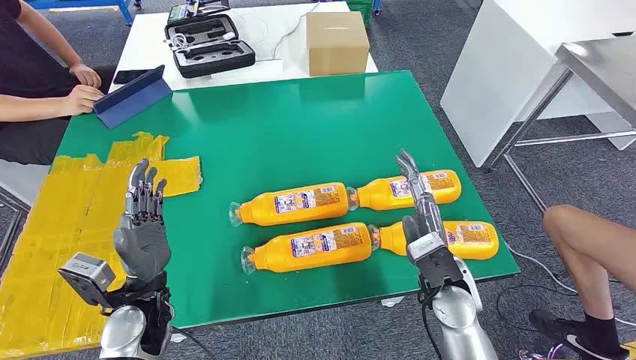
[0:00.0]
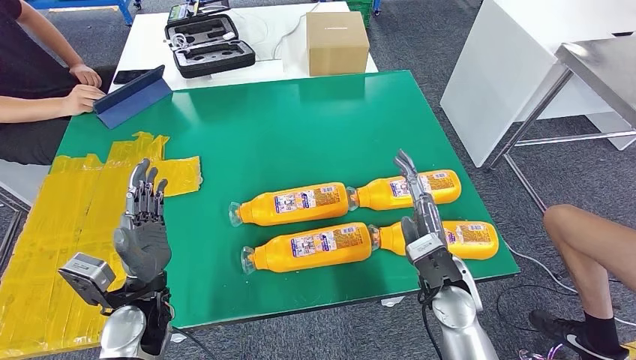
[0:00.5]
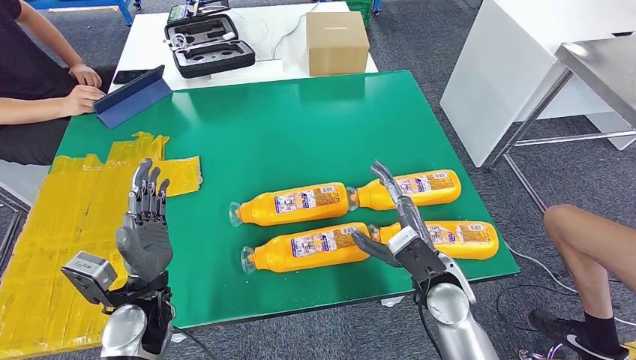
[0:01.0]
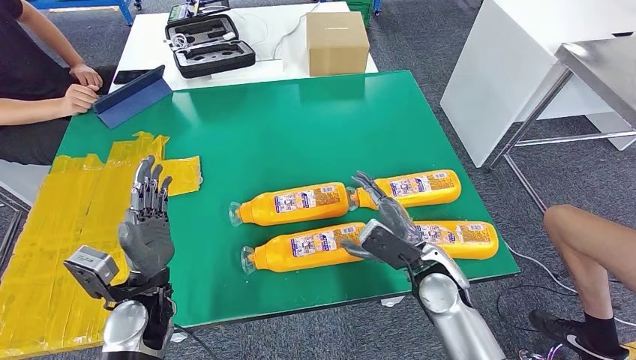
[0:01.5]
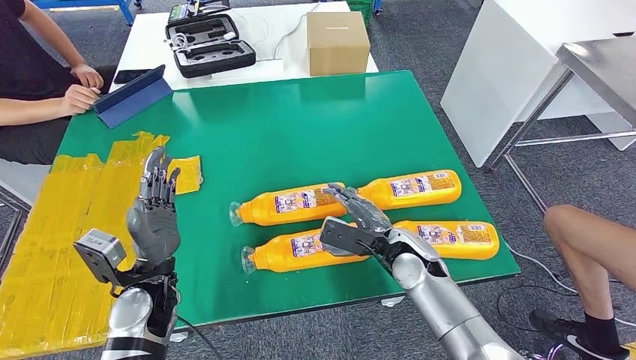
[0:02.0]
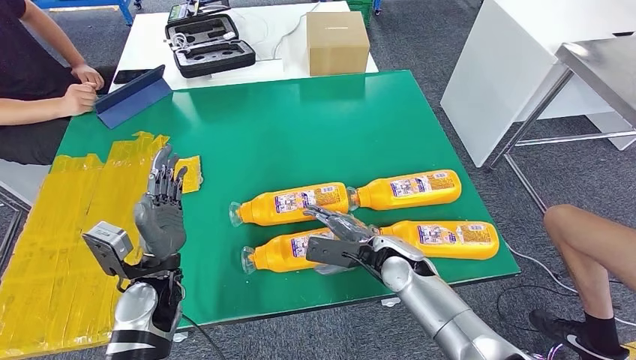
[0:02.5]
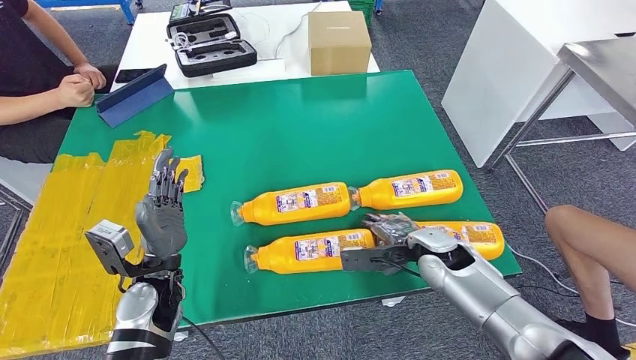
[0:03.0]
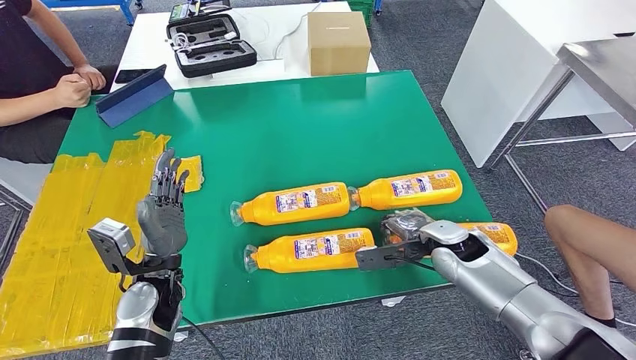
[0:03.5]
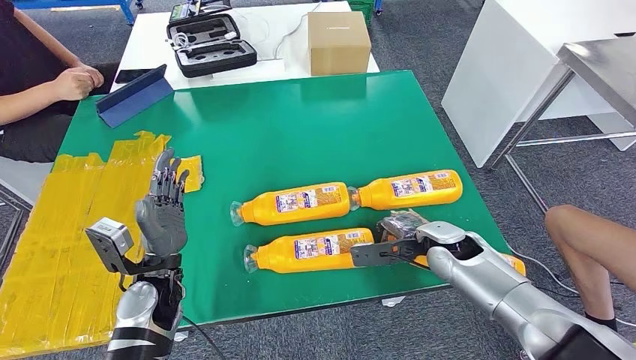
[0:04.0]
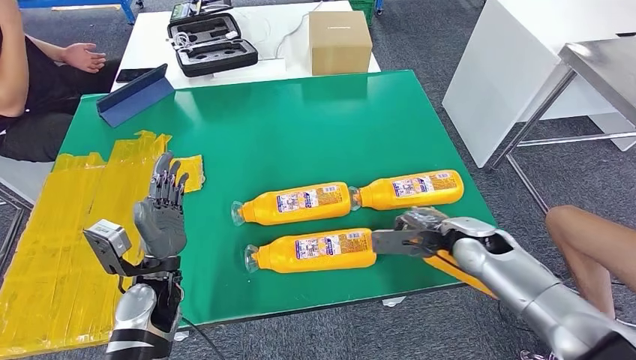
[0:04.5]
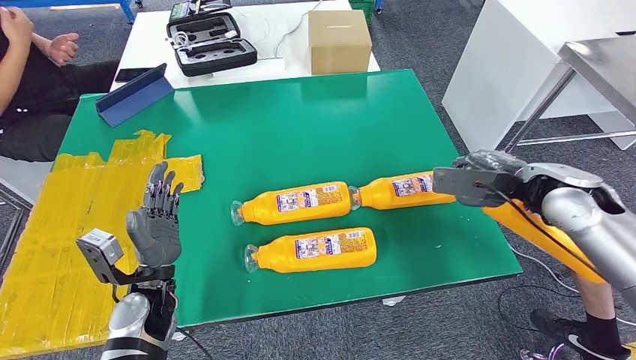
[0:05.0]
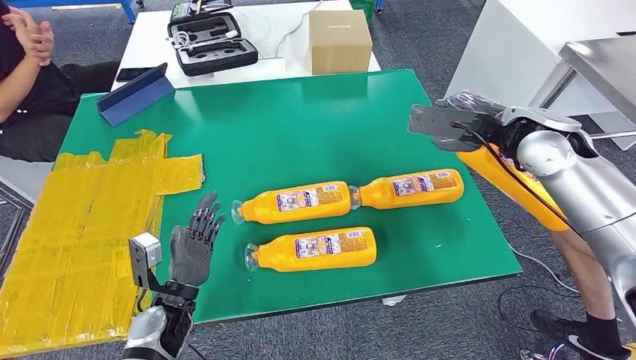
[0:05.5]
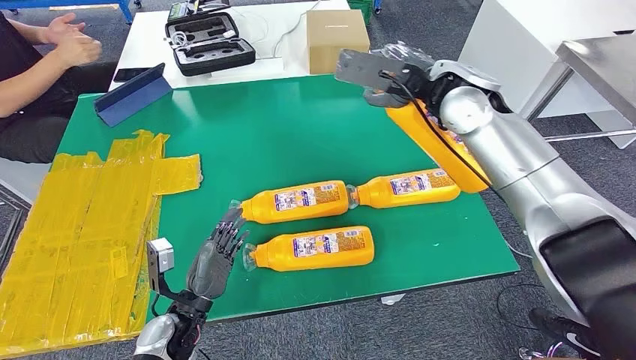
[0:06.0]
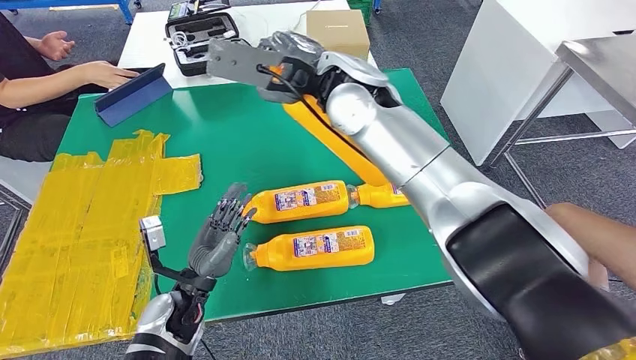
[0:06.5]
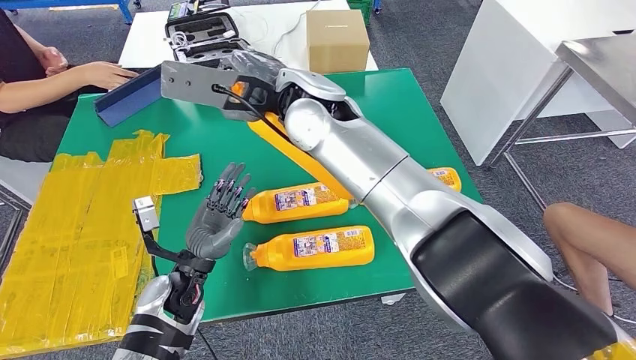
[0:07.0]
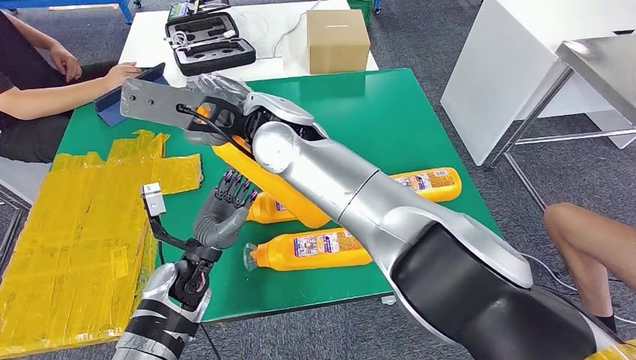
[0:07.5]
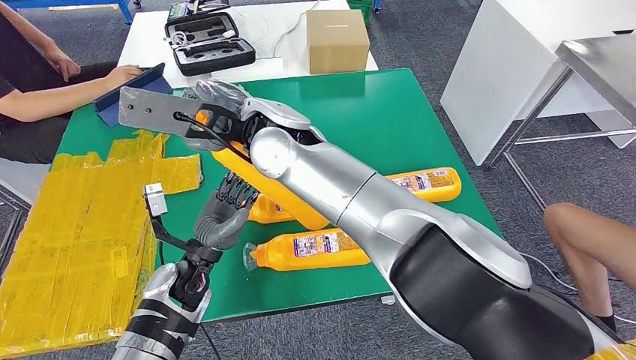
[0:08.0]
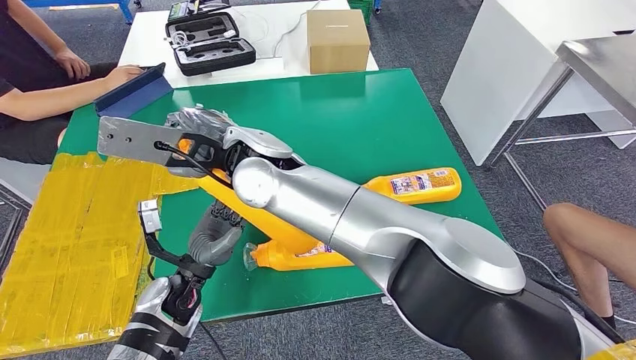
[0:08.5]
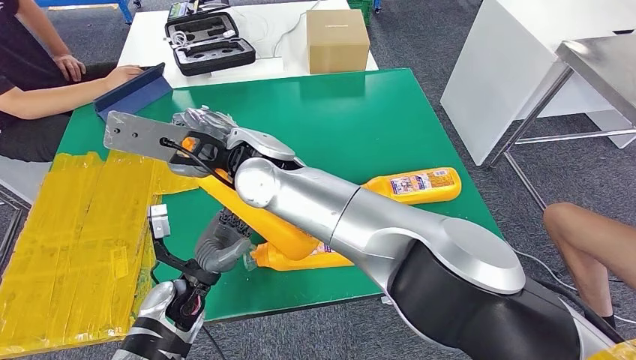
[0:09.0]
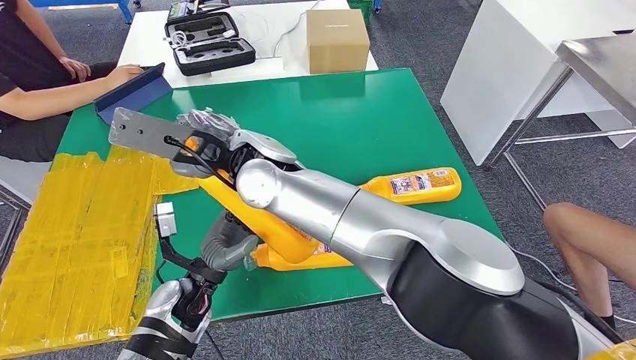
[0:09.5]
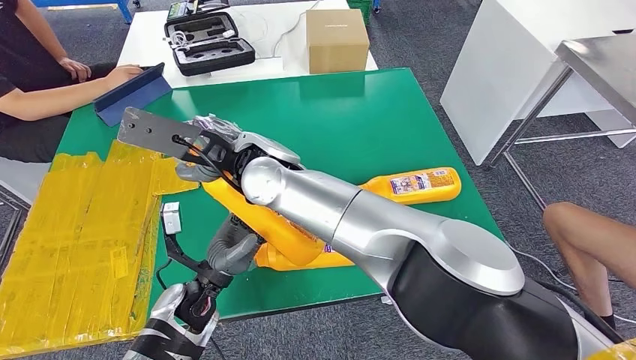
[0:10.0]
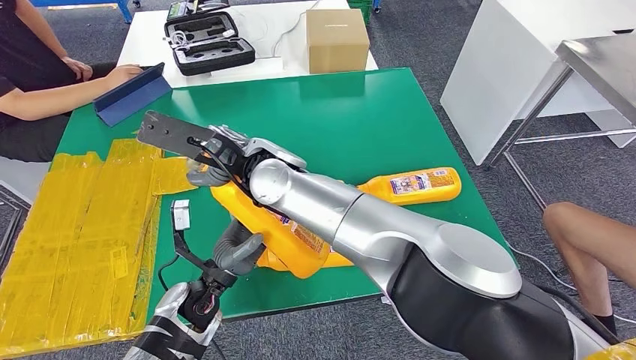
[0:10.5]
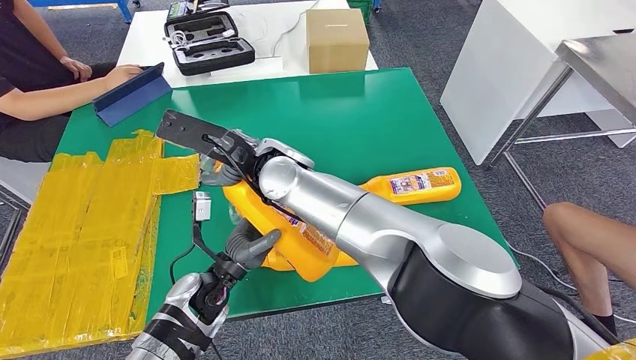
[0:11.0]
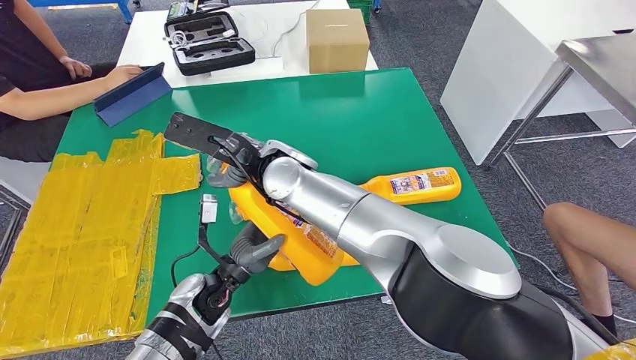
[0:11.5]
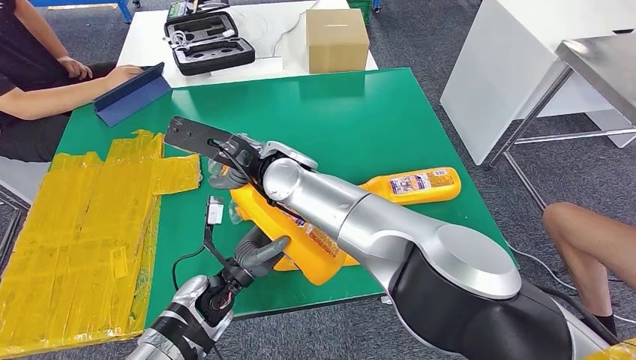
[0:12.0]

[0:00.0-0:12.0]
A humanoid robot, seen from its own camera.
Step, 0:00.0 to 0:05.5: Take the bottle from the table.
0:02.0 to 0:04.0: The right hand travels to the right by about 5 cm.
0:10.0 to 0:12.0: The hands make only small movements.

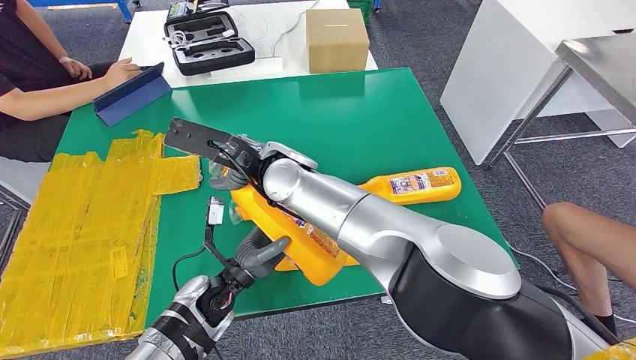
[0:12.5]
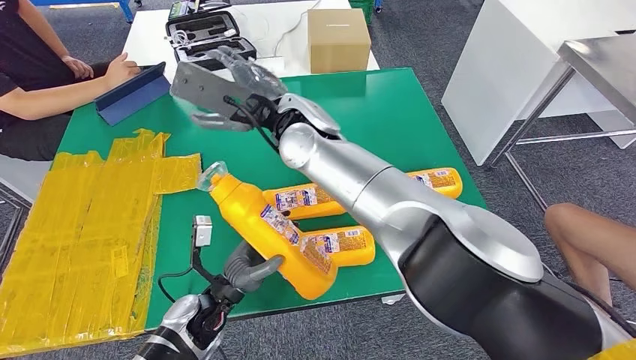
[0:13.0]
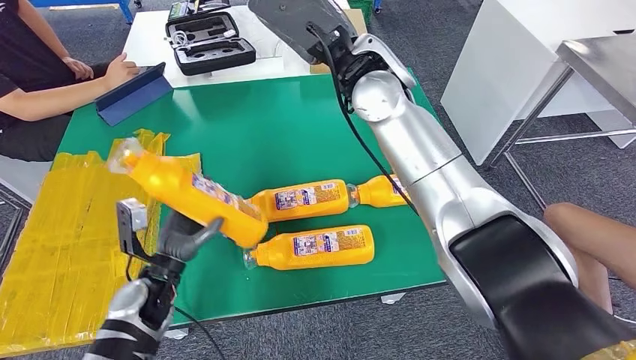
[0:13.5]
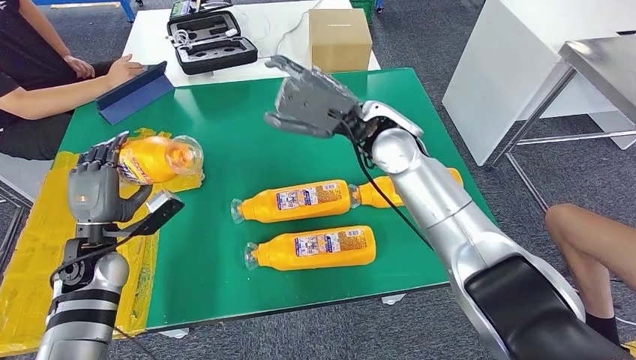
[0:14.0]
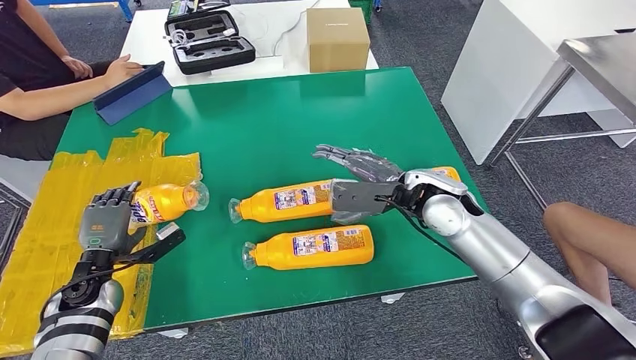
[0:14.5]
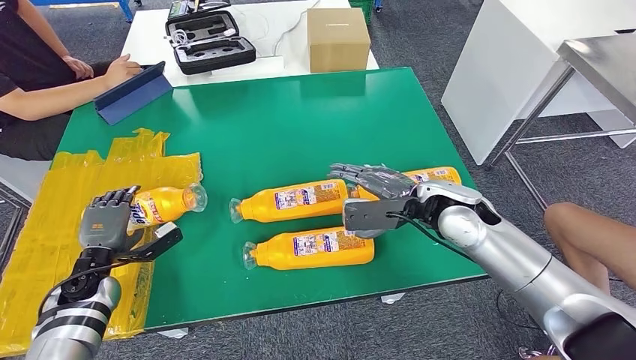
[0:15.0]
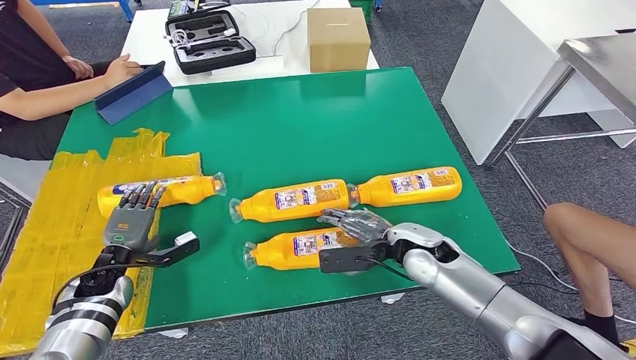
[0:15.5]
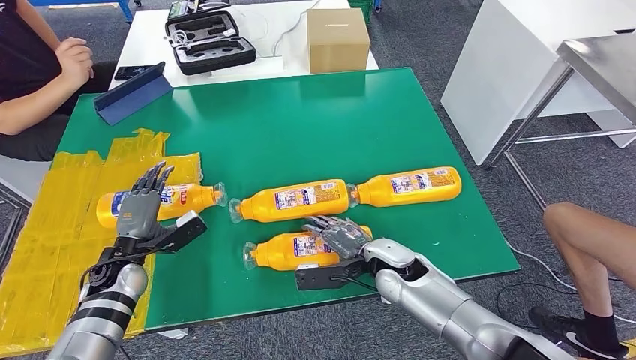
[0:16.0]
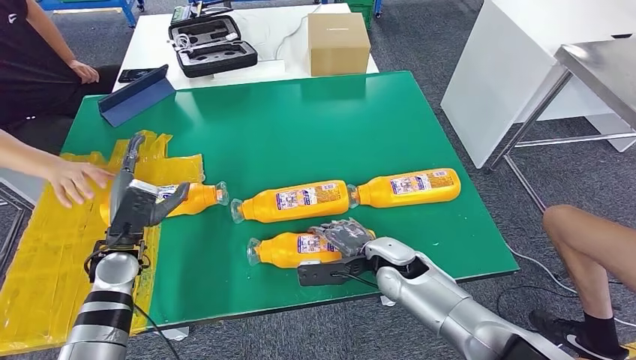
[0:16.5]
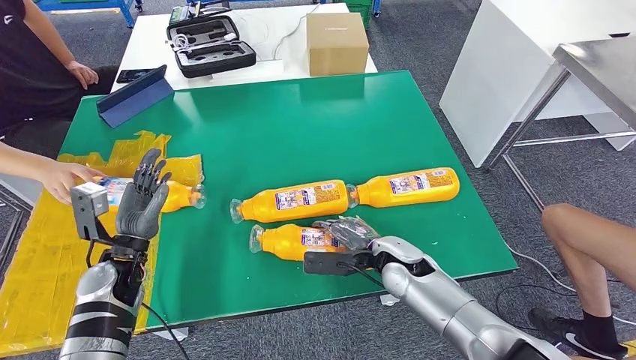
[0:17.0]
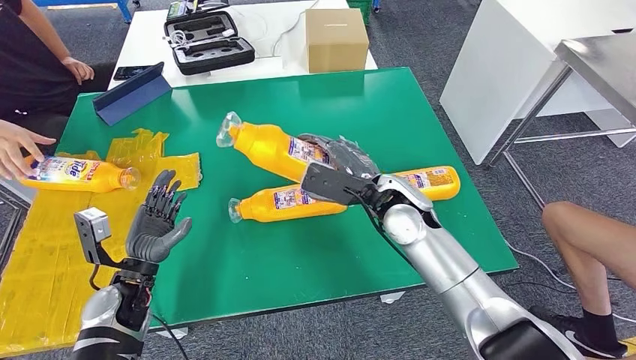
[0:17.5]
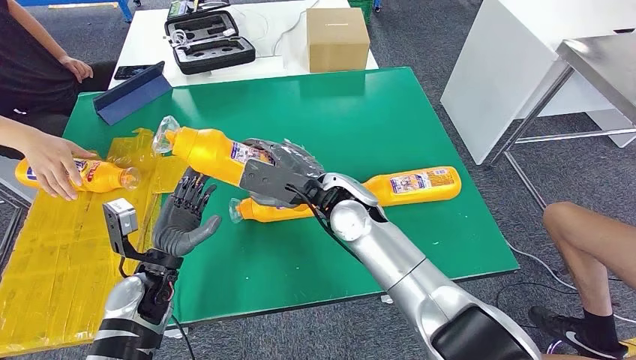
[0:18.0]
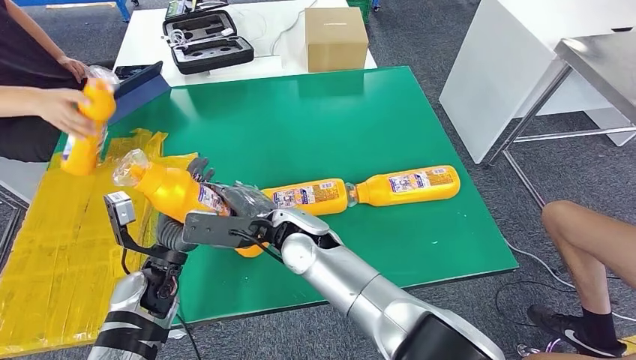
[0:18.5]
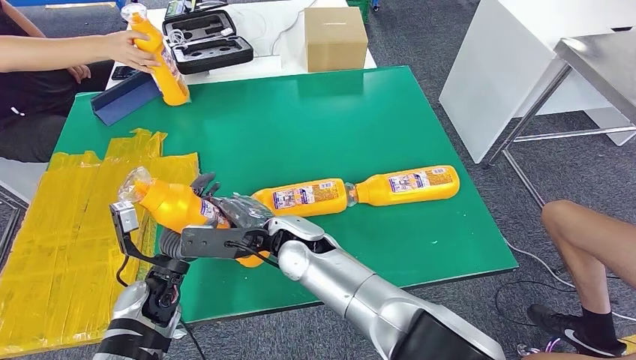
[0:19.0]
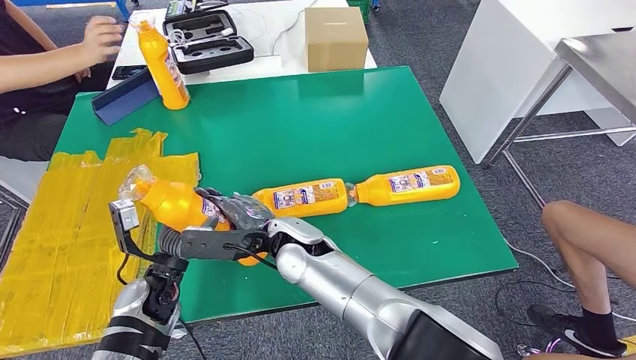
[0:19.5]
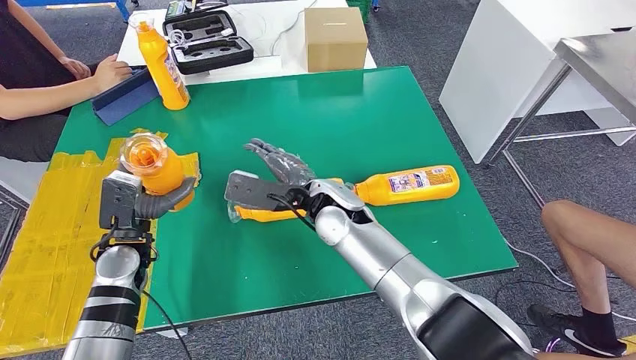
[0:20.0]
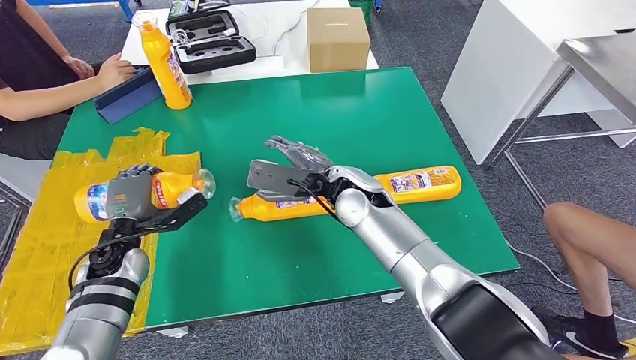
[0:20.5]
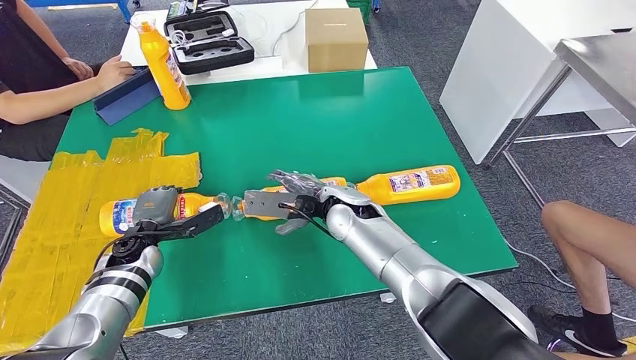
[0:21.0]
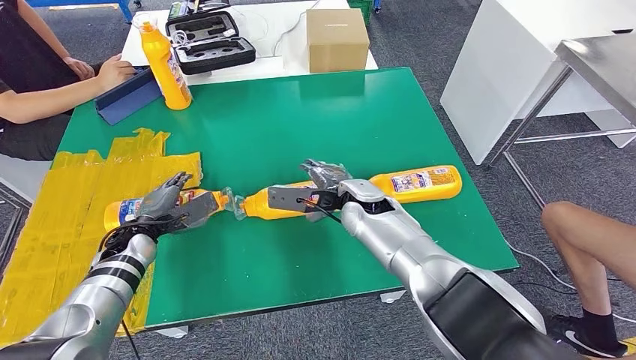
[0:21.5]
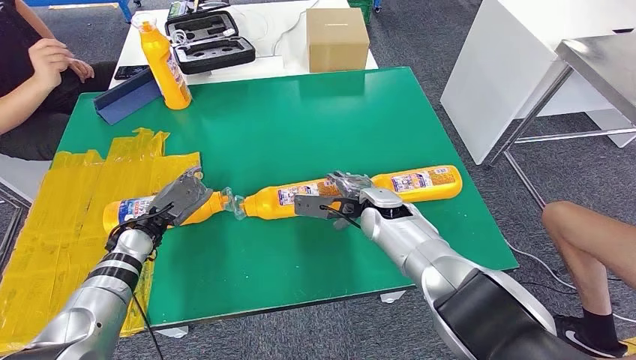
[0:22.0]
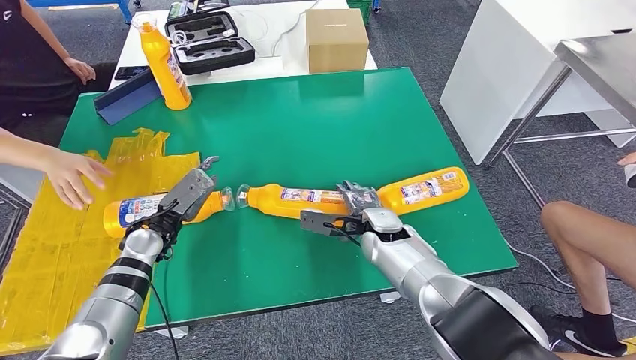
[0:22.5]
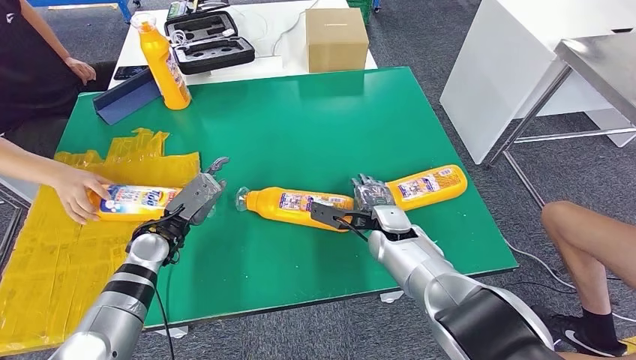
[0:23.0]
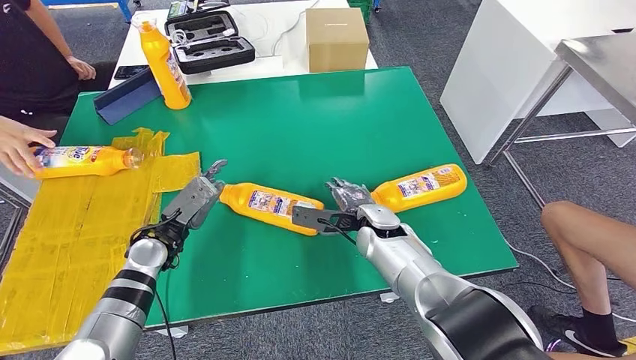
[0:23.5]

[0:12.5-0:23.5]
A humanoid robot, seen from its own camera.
Step, 0:12.5 to 0:15.0: Flip the bottle to face forward.
Step, 0:15.5 to 0:18.5: Pick up the bottle from the table.
Step, 0:19.0 to 0:22.0: Flip the bottle to face forward.
0:21.5 to 0:23.5: The left hand travels to the right by some 5 cm. Meanwhile the right hand is displaced downward by approximately 5 cm.
